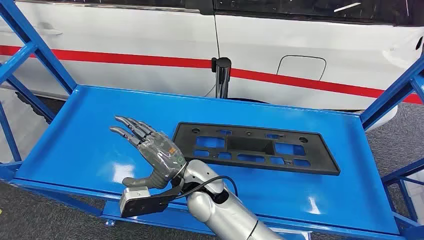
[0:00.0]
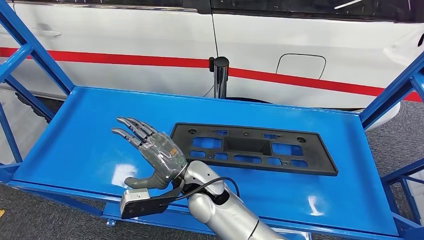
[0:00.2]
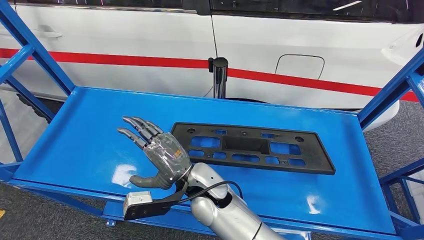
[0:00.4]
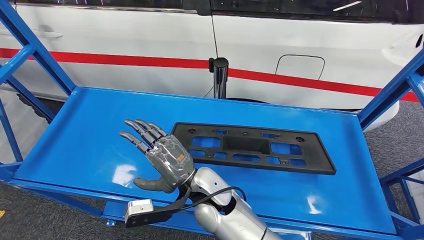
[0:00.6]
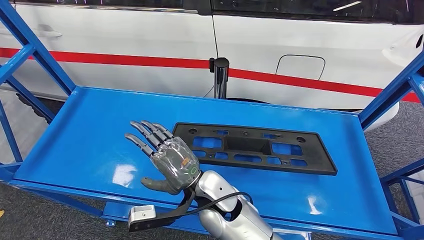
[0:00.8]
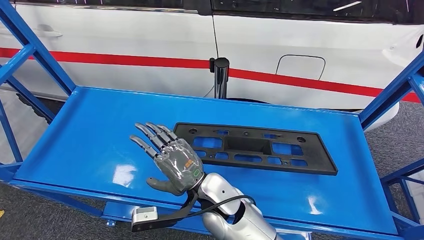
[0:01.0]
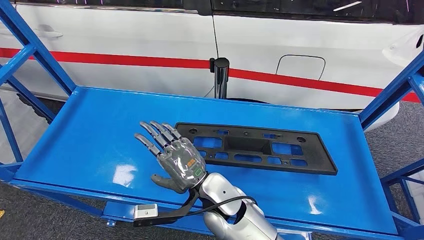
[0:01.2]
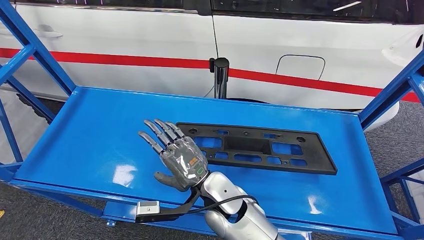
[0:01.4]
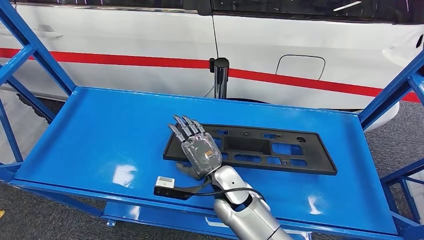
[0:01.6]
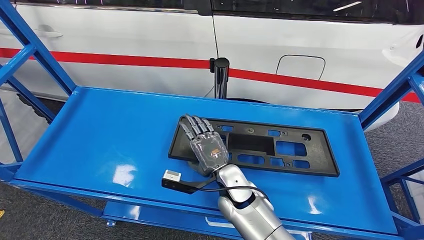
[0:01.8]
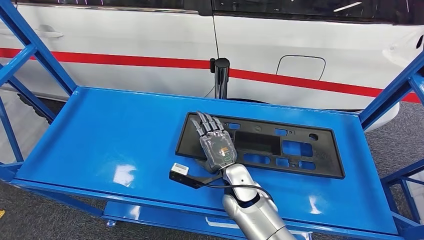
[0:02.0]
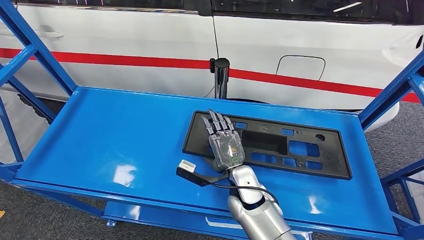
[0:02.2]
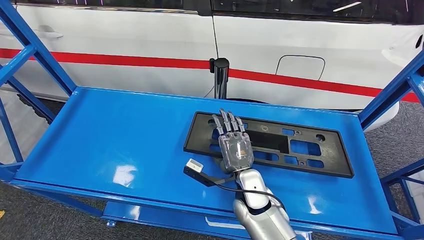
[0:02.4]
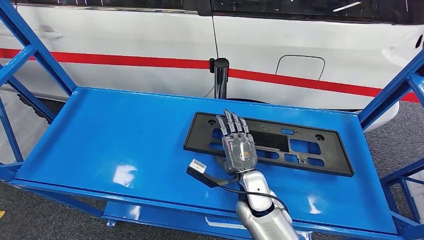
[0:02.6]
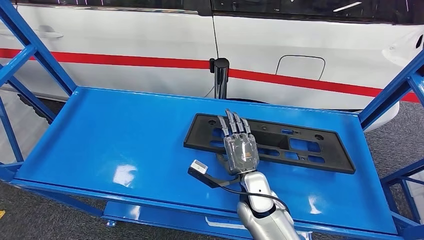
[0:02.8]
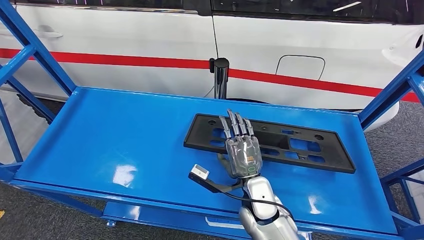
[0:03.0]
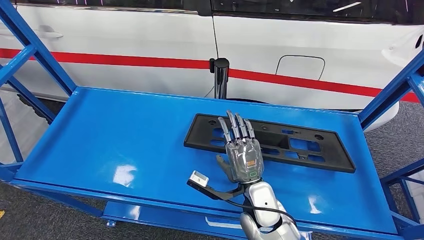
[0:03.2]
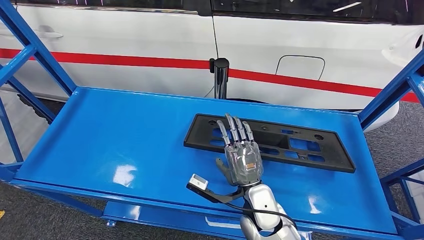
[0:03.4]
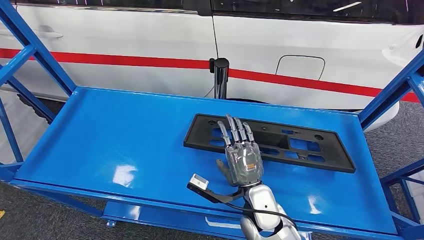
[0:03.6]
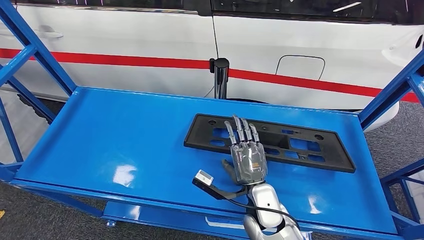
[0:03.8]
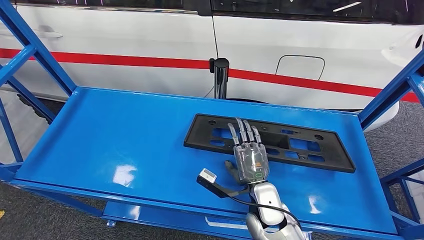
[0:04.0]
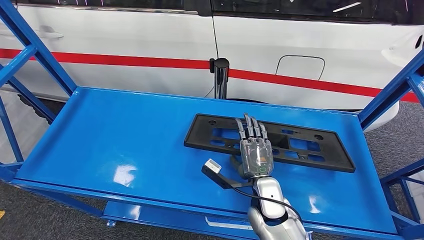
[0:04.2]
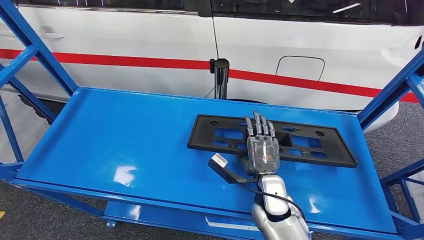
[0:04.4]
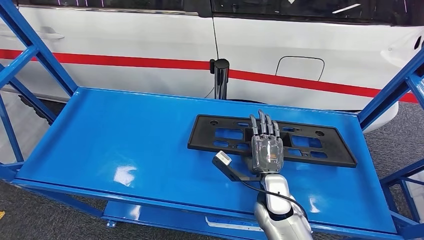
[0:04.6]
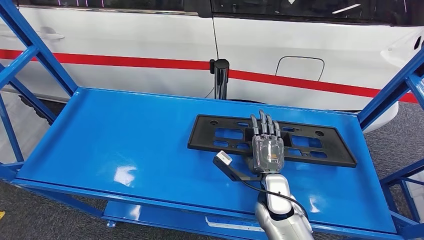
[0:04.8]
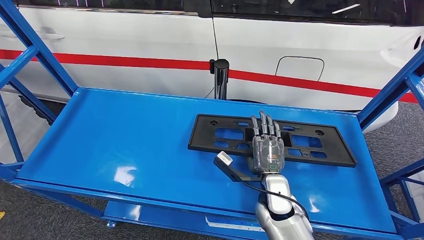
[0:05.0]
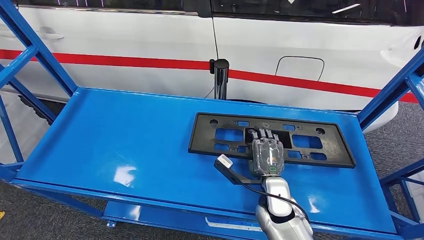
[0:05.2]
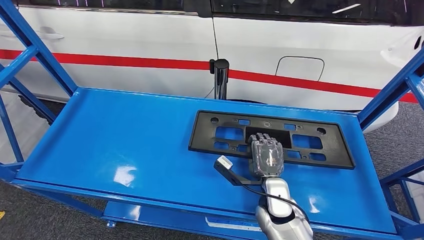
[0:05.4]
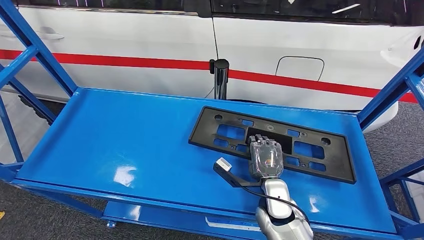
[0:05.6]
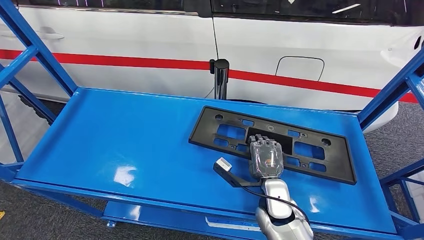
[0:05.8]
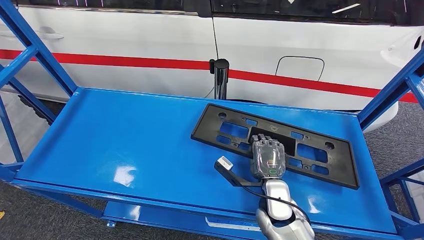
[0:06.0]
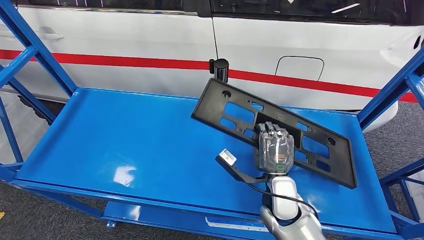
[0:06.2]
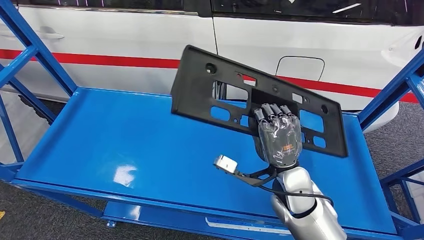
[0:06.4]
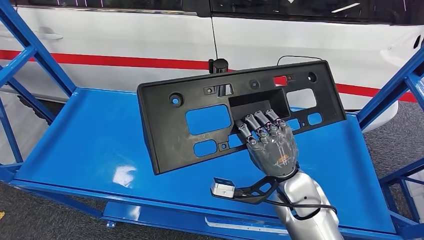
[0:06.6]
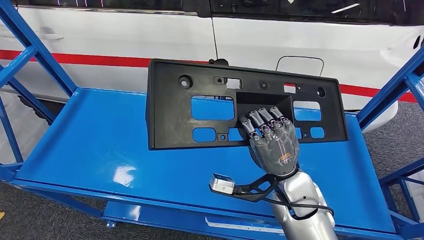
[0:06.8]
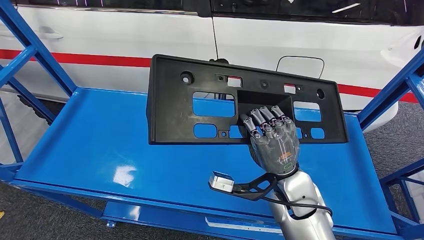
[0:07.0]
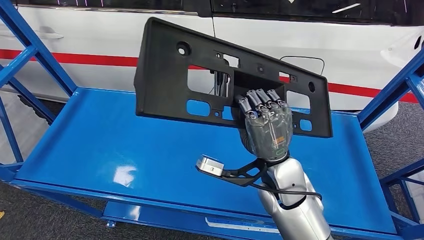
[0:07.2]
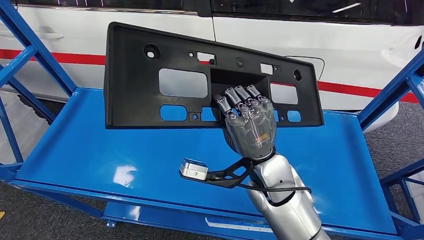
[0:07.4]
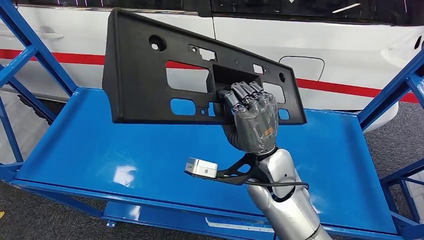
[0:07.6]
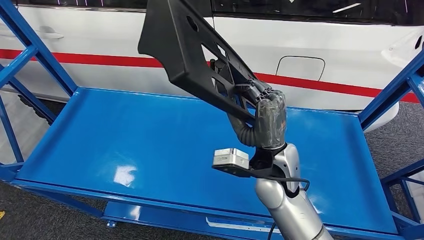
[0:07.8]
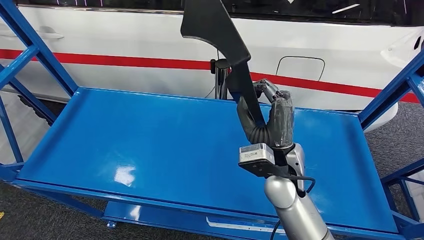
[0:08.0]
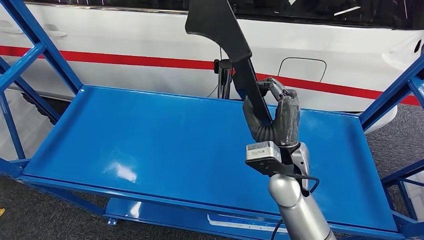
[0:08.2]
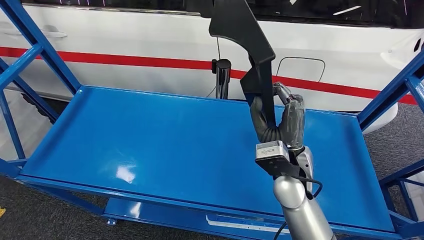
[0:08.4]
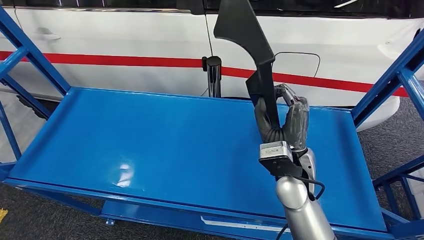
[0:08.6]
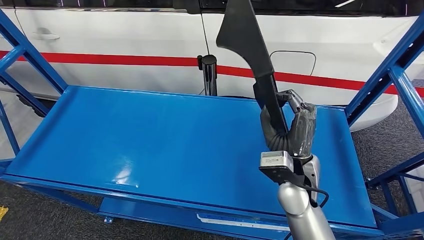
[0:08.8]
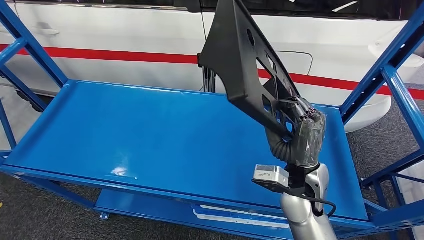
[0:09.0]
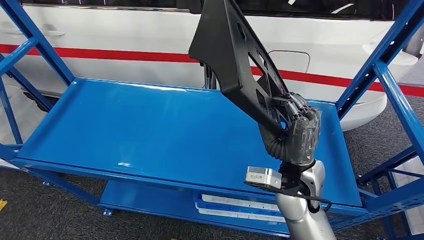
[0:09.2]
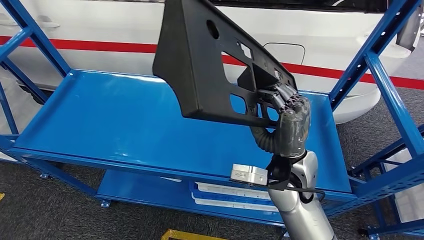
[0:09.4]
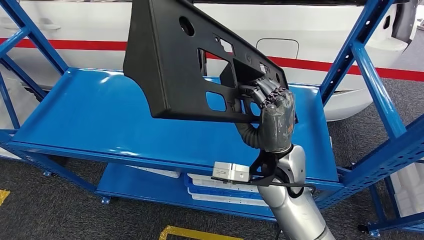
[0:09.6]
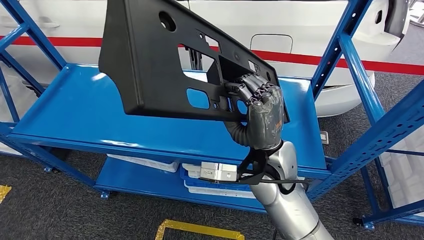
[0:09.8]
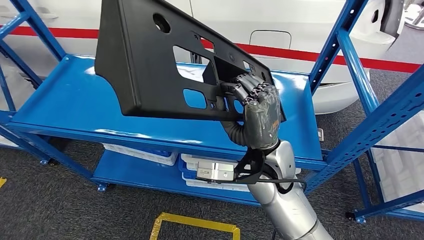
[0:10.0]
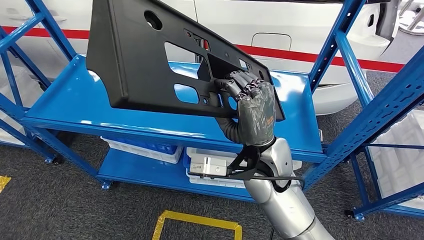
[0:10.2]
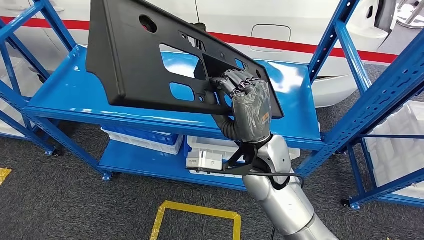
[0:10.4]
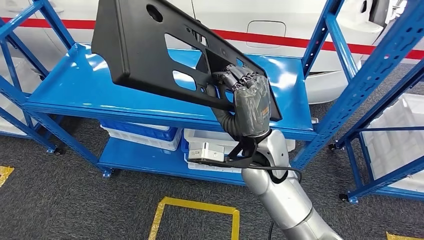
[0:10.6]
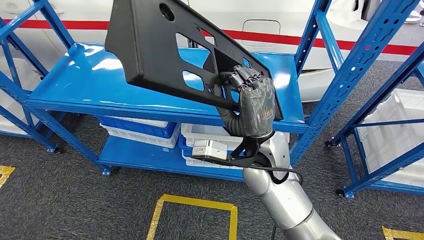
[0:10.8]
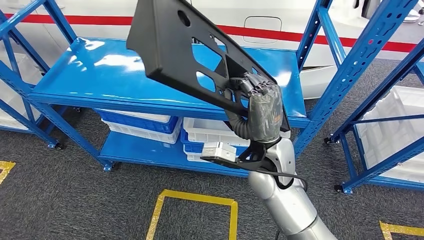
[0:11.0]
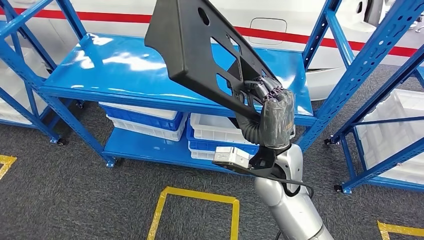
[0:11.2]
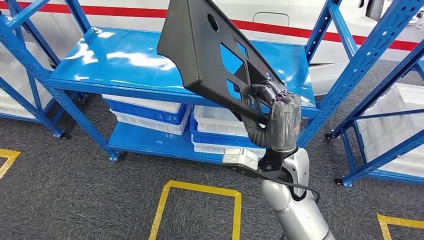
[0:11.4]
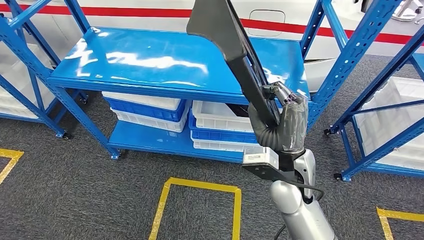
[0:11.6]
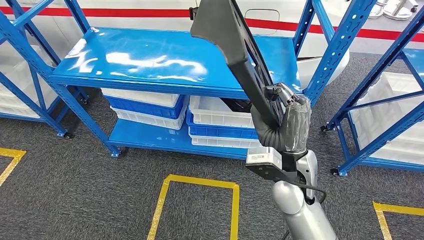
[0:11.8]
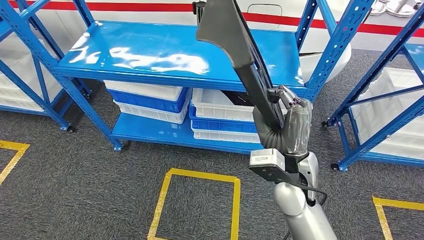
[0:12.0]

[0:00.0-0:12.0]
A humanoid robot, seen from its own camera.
Step, 0:00.0 to 0:06.8: Pick up the large material from the shelf.
0:01.6 to 0:03.0: The right hand moves to the right, about 10 cm.
0:03.0 to 0:06.0: There are only small adjustments of the hands.

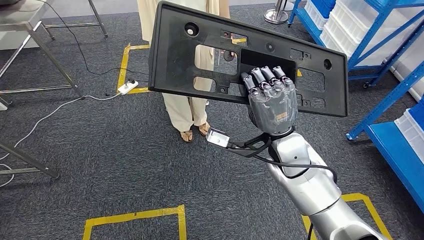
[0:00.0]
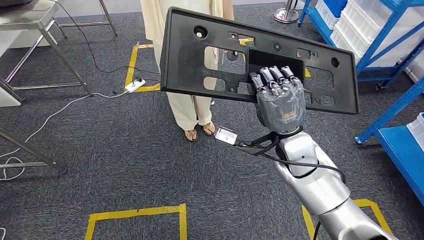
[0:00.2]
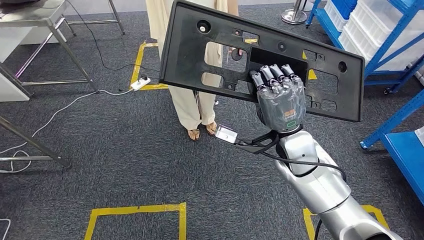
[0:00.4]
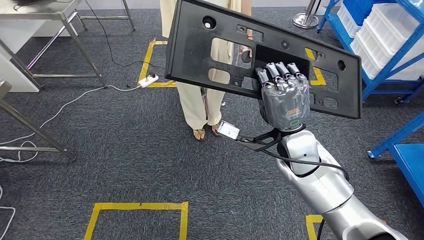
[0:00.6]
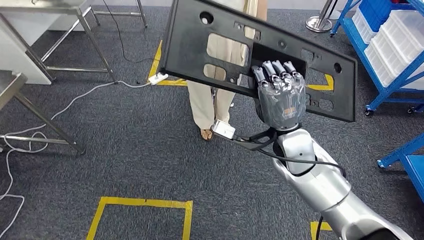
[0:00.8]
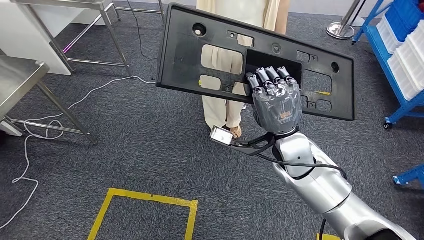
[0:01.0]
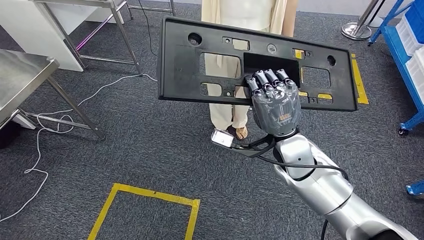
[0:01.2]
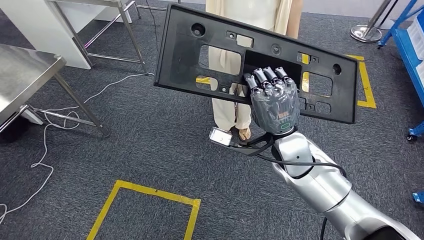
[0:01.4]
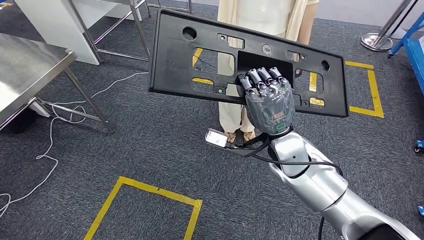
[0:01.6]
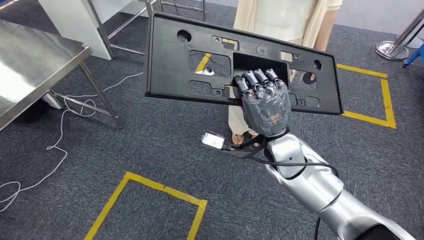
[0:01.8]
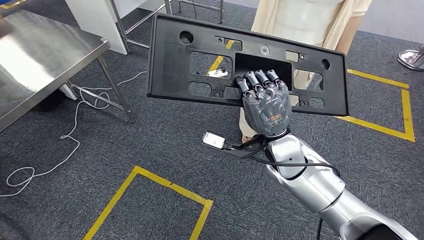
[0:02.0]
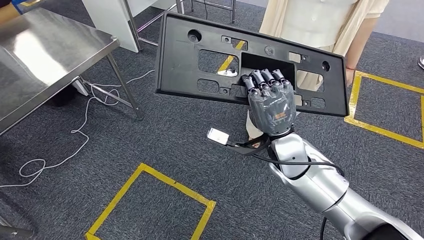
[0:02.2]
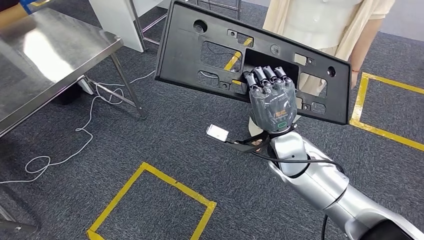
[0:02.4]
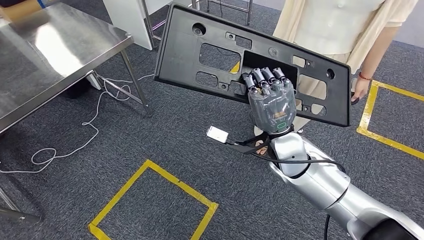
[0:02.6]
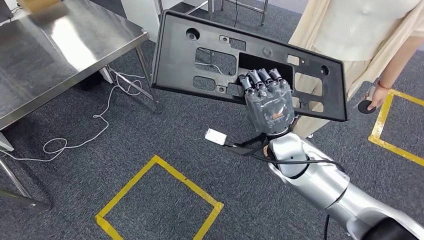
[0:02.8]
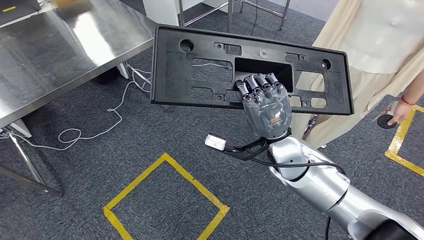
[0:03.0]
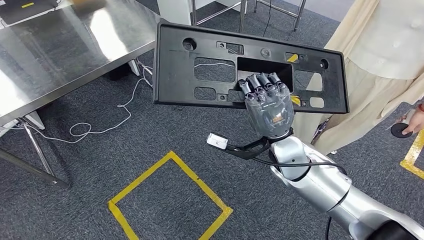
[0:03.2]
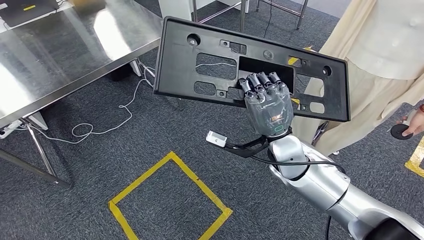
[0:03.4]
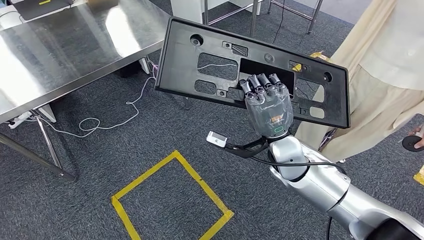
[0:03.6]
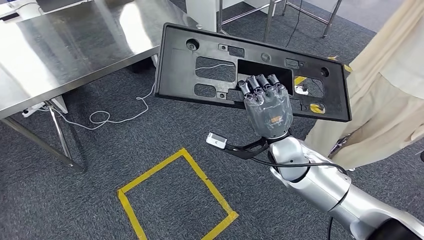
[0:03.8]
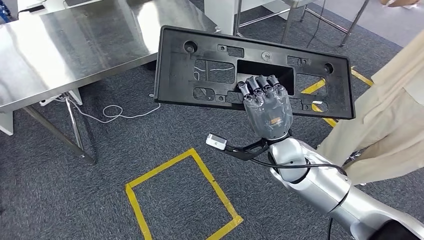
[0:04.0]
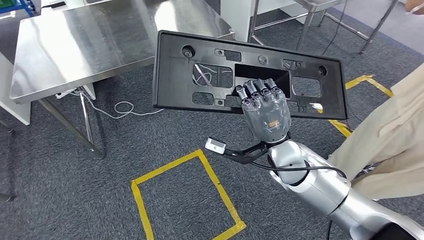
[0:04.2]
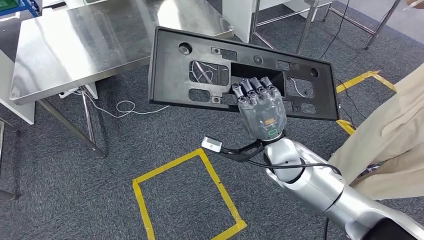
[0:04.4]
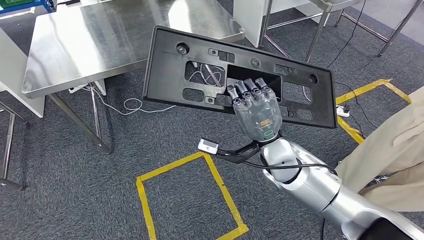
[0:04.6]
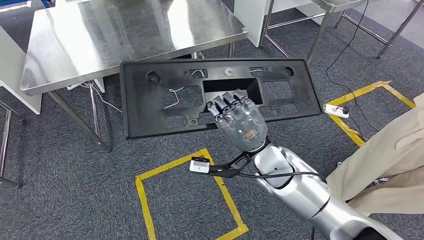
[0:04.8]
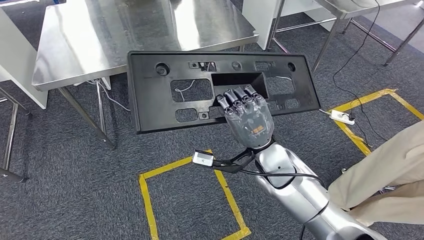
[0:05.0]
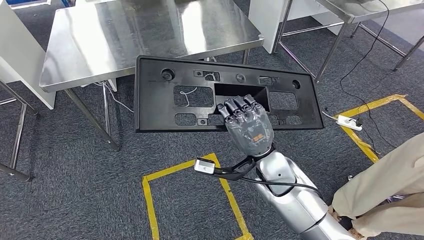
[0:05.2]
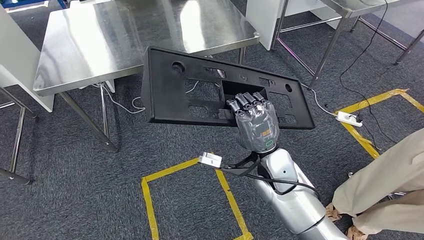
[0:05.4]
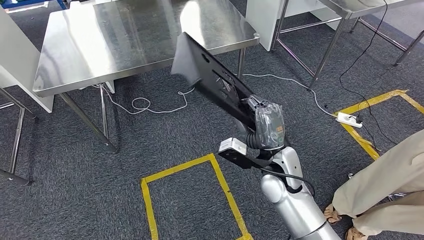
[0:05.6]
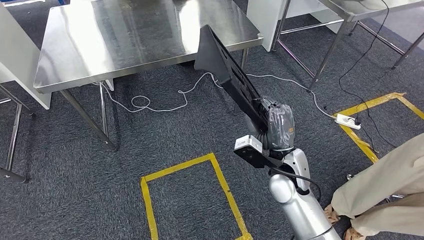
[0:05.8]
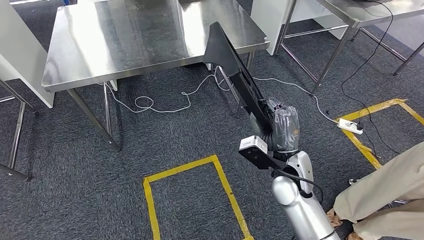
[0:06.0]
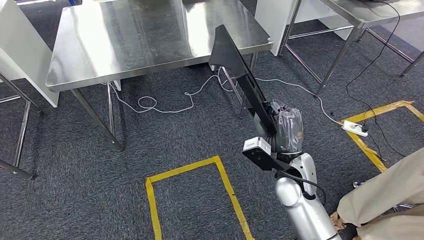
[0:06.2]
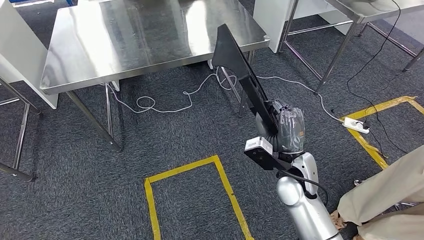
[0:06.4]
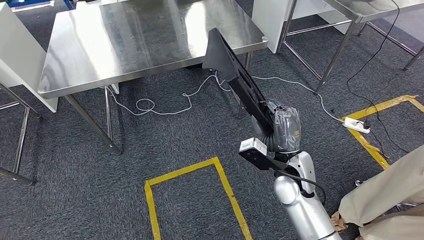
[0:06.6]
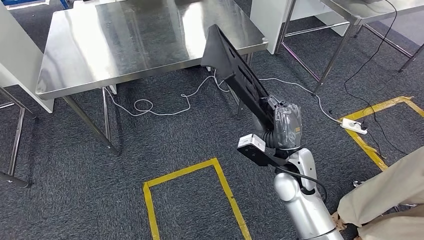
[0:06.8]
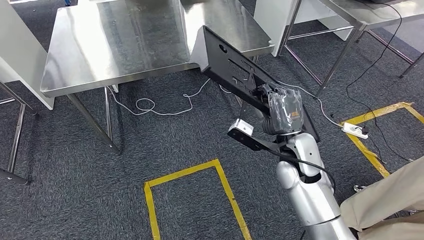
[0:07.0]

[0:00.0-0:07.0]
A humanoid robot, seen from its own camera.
Step, 0:00.0 to 0:02.8: Move the large material to the workbench.
